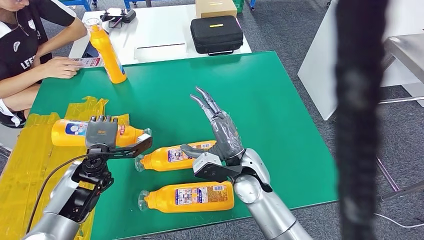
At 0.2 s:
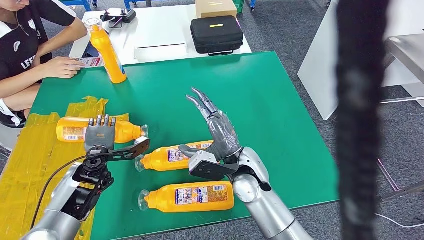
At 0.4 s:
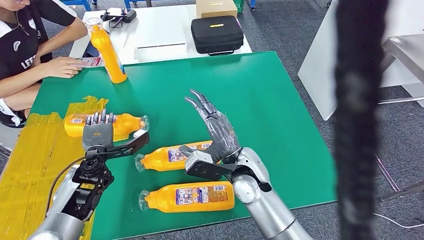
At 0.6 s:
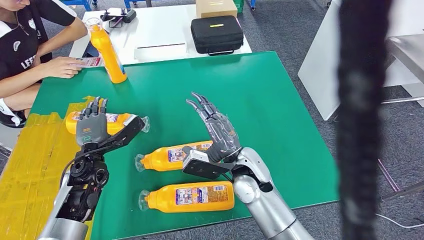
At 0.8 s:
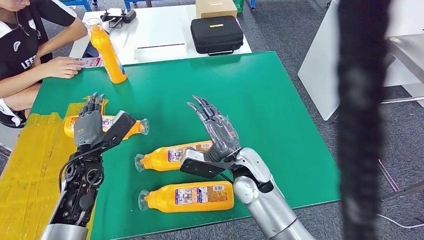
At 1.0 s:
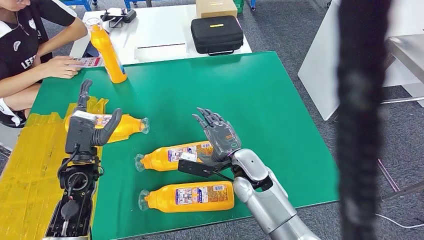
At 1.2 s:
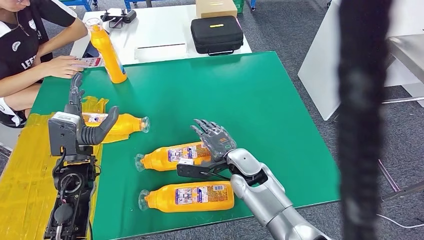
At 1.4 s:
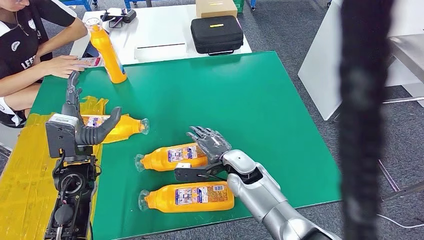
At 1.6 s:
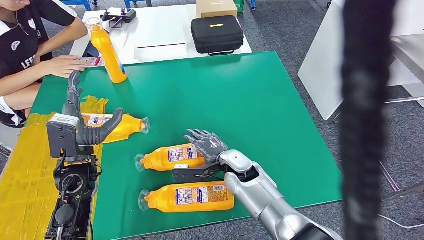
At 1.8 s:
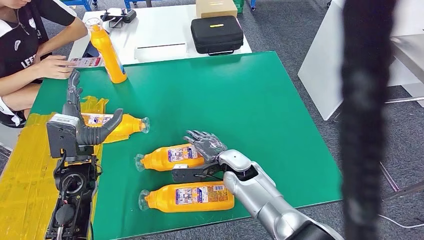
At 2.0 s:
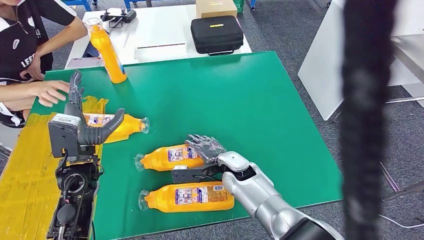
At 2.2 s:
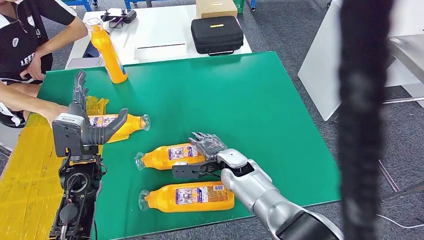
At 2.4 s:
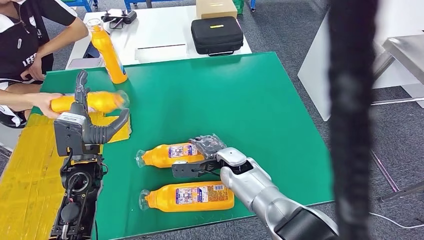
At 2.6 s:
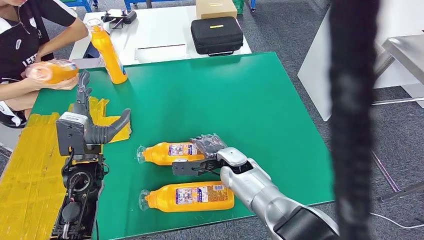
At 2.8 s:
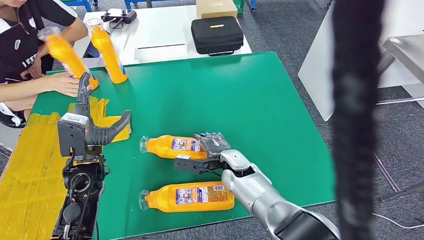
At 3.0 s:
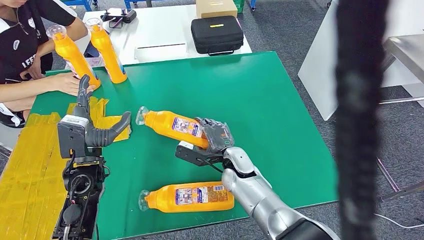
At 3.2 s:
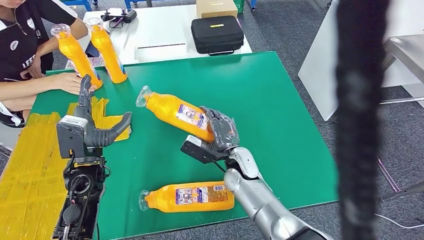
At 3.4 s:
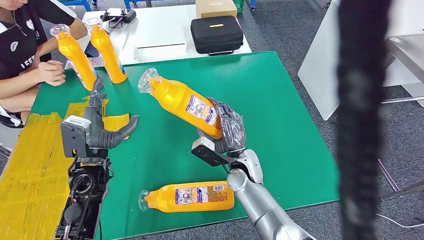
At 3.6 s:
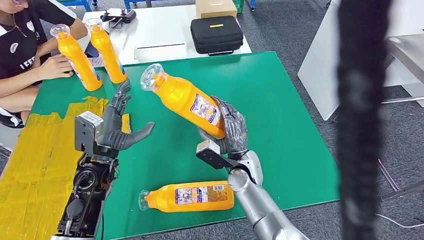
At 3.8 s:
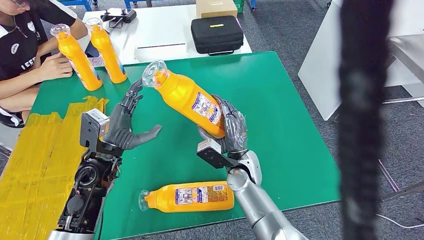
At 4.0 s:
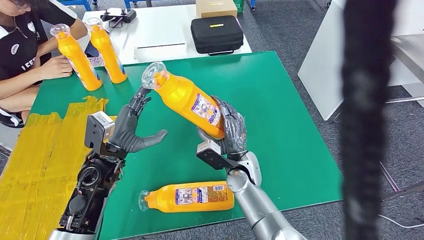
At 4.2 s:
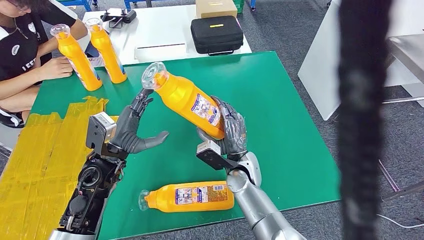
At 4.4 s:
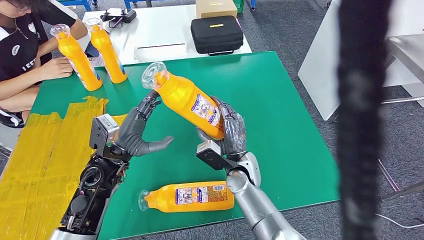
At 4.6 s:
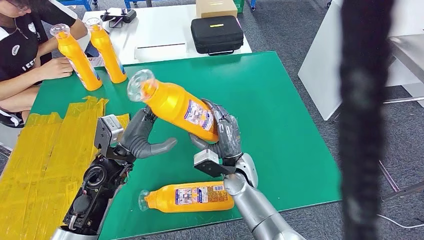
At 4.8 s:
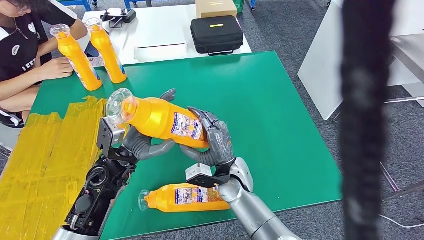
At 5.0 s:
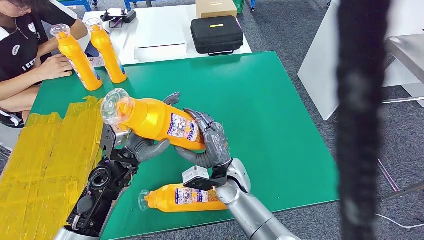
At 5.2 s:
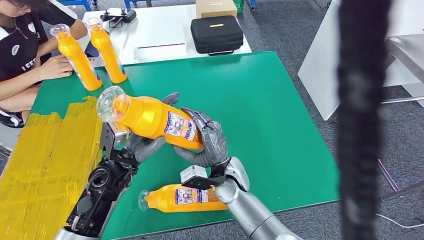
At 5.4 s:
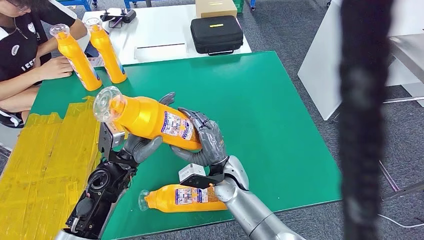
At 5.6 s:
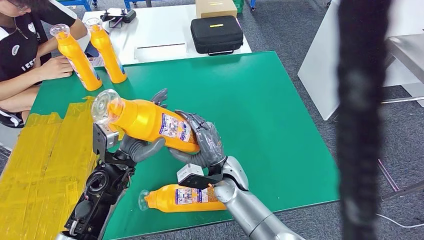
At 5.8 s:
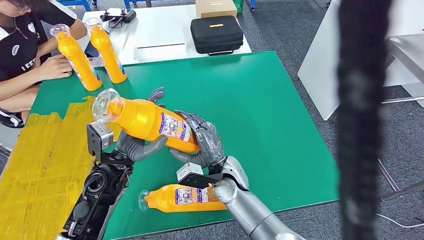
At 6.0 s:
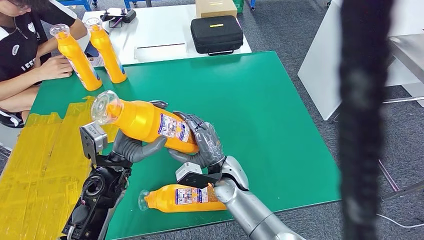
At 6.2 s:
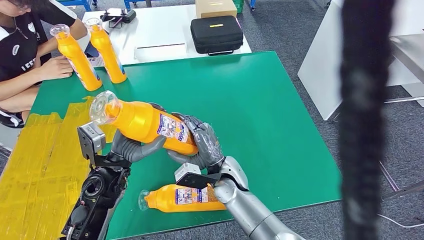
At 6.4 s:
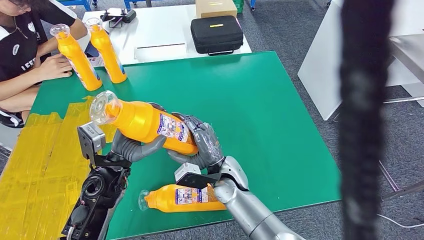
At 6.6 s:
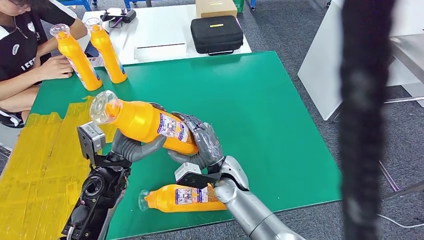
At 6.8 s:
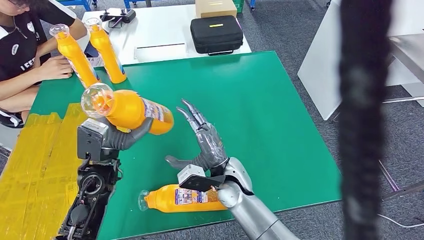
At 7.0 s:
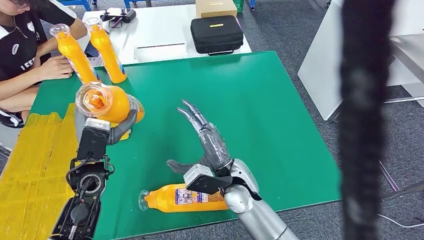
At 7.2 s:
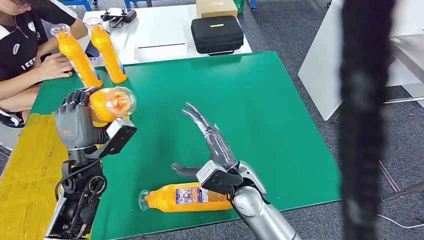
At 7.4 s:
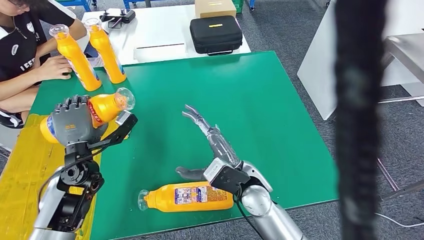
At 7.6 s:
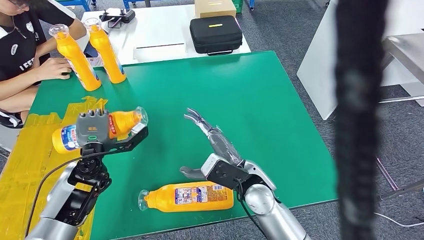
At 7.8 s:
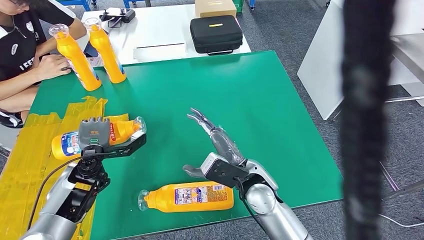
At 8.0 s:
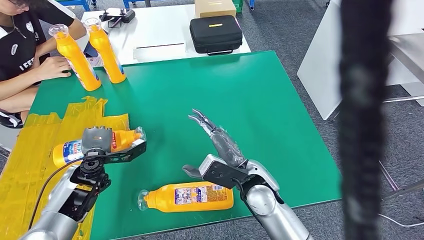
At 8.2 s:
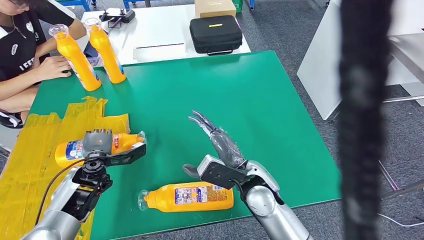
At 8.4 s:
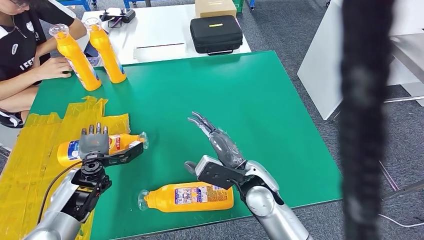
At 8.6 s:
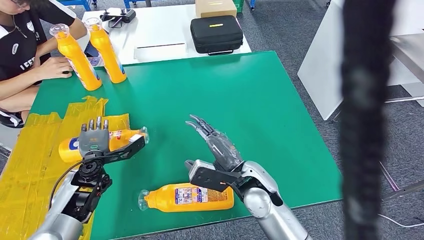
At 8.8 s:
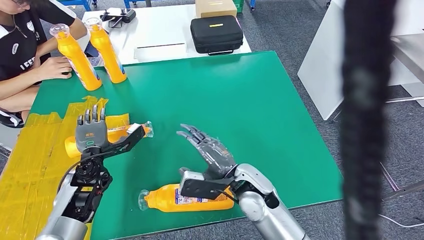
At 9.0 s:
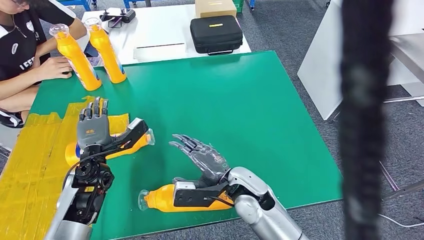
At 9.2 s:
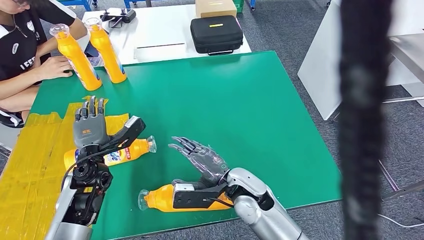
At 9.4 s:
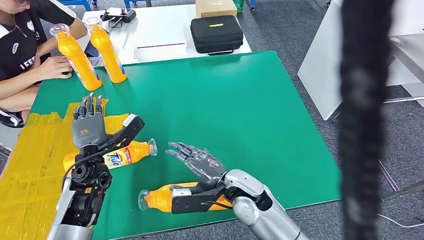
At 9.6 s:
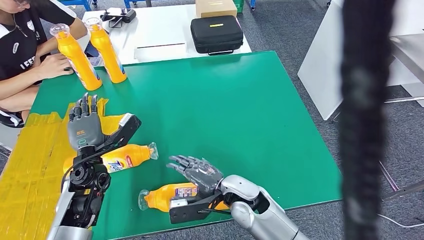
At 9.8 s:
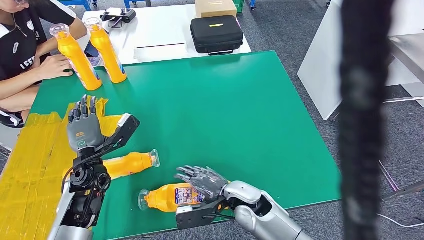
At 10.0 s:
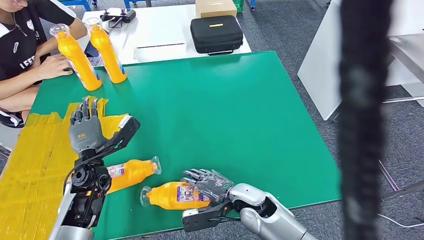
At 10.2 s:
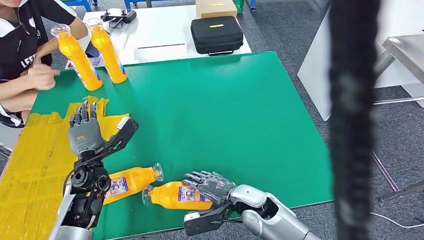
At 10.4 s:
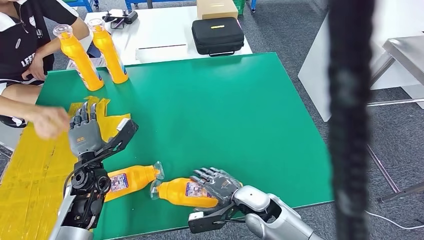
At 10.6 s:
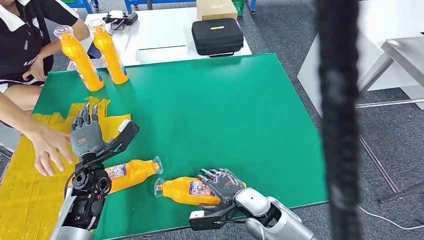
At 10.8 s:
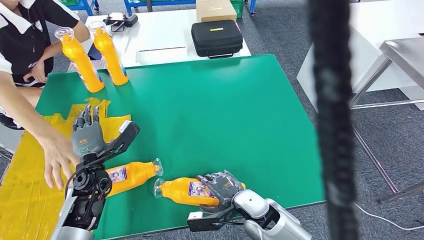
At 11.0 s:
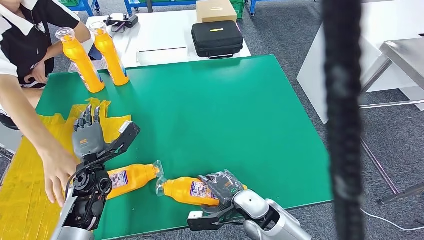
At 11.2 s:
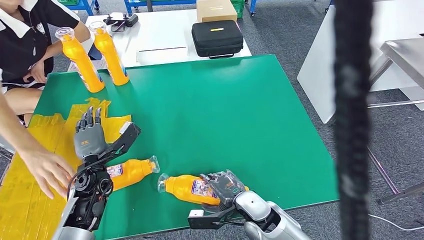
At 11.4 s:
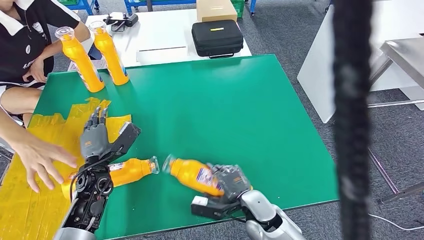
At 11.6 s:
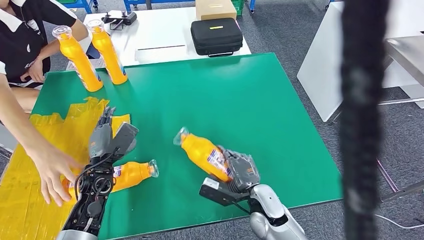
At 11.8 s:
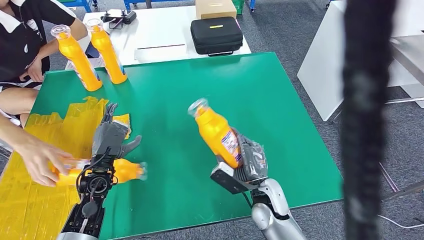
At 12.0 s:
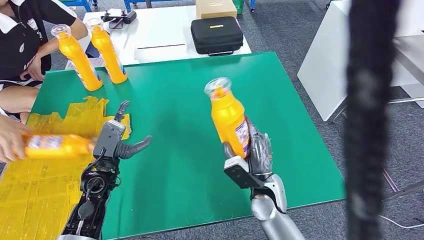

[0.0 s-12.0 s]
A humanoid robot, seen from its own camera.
Step, 1.4 to 5.4 s: Pick up the fast-moving consumer goods bottle from the table.
Step, 5.6 to 8.8 s: Flip the fast-moving consumer goods bottle to the front side.

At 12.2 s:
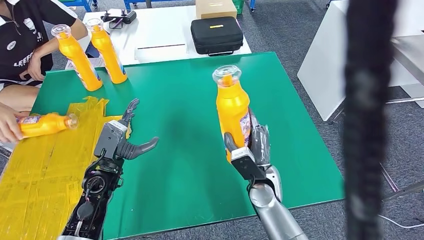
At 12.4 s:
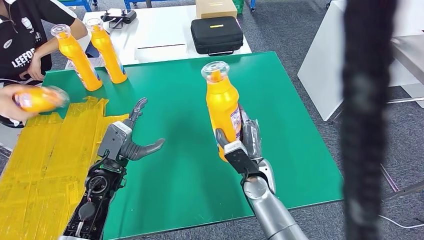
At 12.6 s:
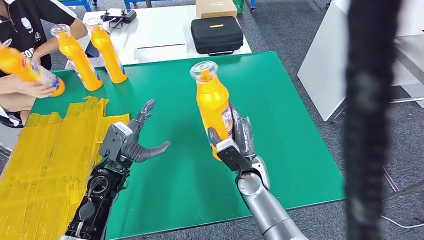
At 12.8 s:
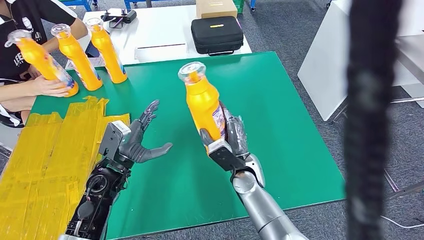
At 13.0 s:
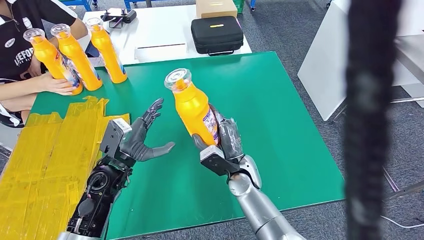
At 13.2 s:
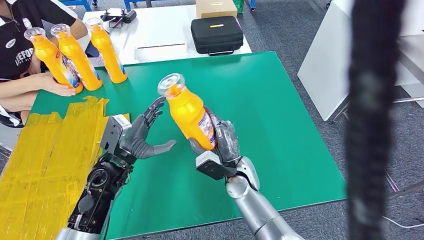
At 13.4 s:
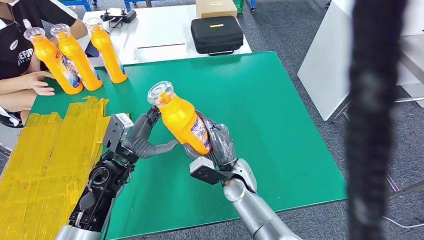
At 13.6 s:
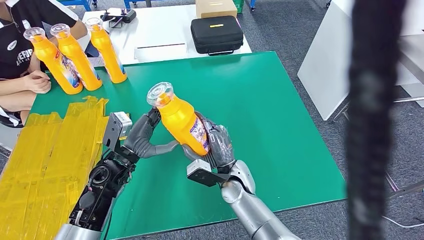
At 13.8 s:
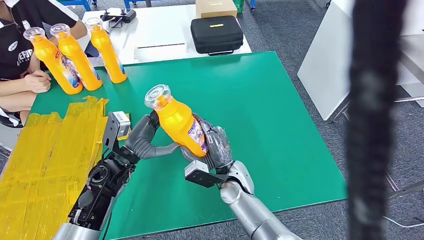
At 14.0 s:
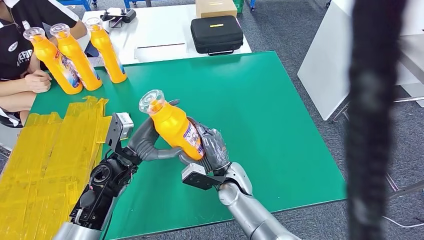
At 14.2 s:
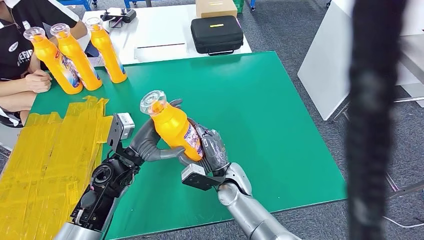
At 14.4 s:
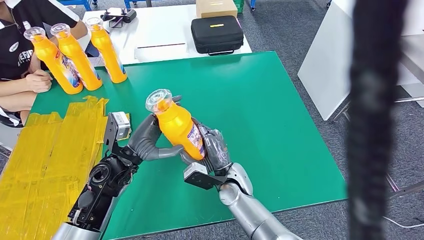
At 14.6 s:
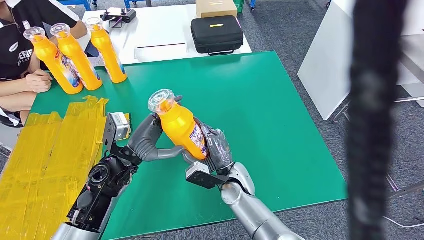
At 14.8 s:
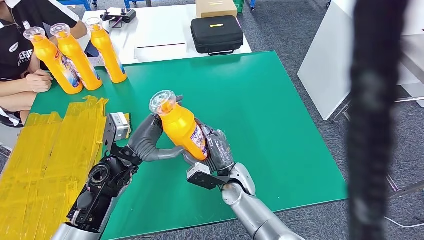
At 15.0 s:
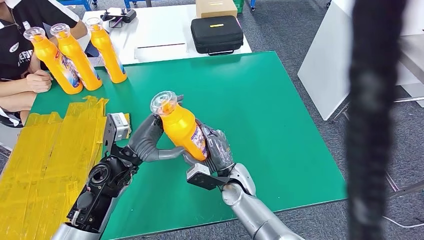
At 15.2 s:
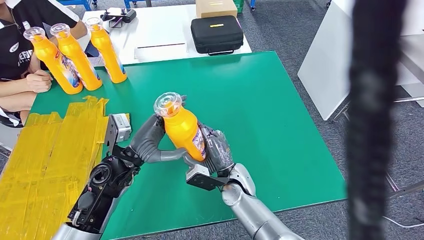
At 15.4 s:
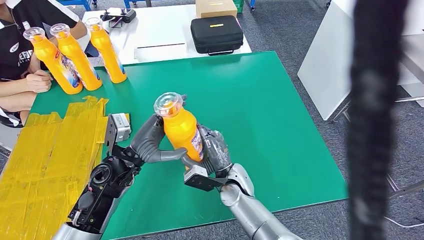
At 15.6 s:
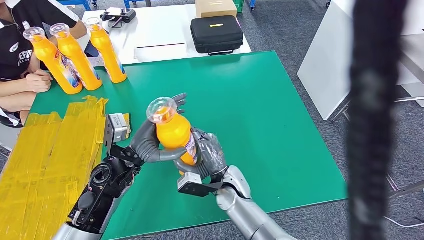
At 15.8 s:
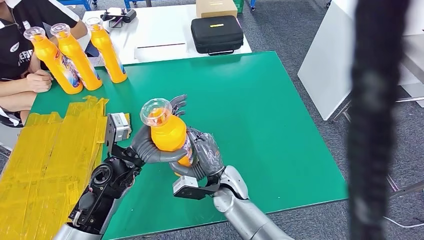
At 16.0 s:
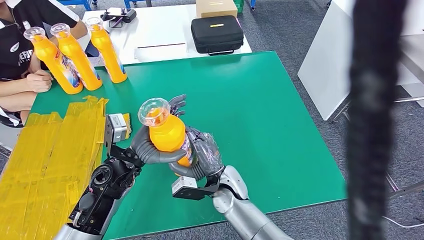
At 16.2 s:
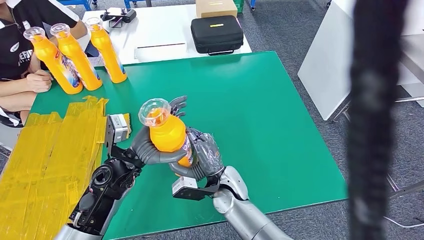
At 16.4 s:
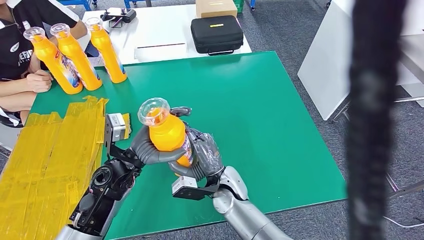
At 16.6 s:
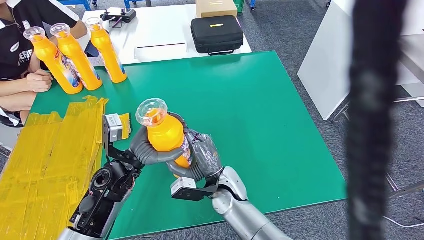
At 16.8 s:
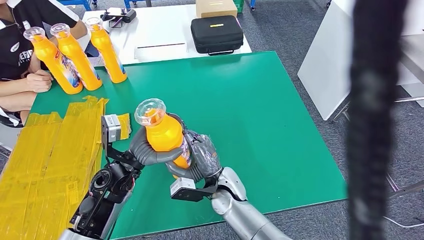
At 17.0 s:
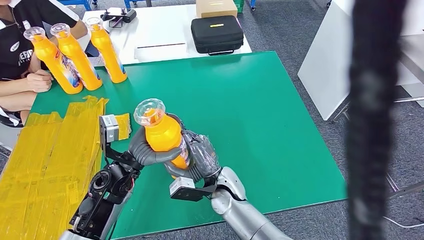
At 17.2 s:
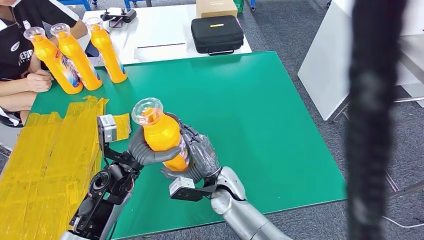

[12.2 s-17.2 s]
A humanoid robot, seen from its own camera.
13.8 to 17.2 s: The hands make only small movements.
